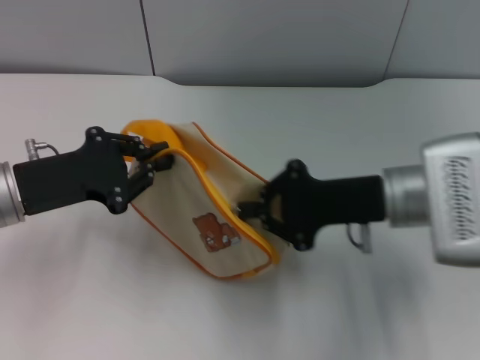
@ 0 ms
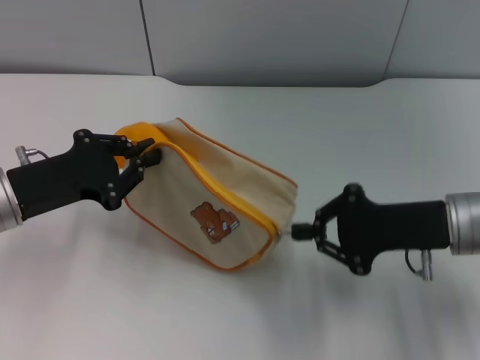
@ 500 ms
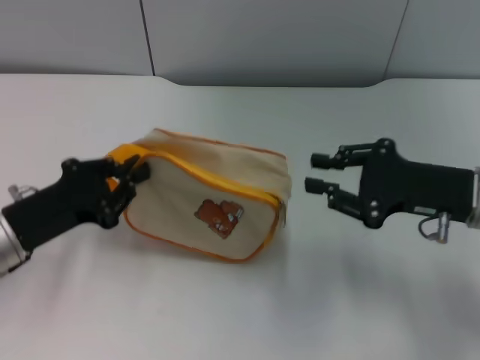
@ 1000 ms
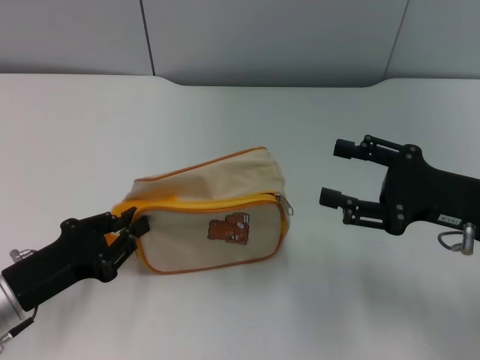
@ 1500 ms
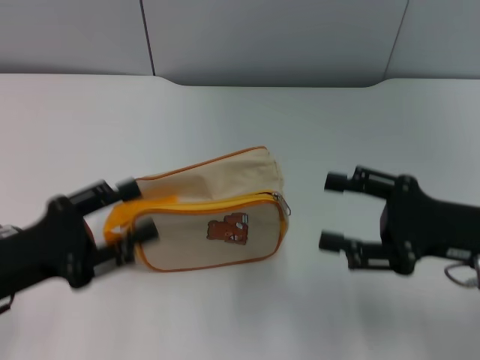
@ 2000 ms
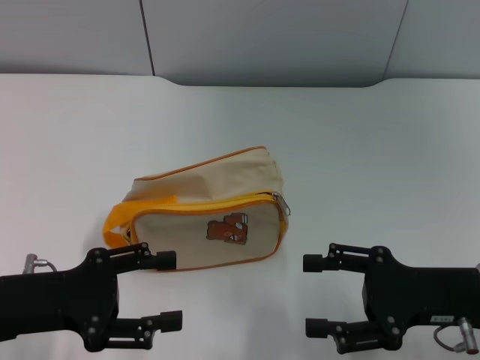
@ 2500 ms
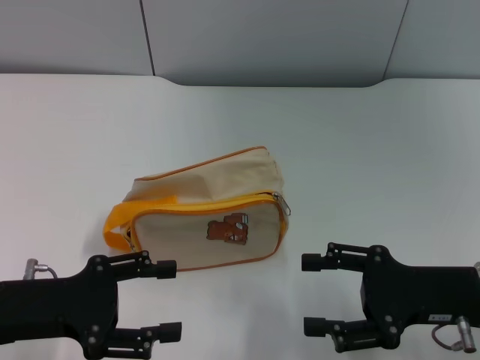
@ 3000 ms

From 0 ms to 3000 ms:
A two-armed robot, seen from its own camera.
Step, from 1500 ms to 2000 ms: Place the bag on the table with left gripper.
From 0 ms to 1500 ms: The left gripper shifts approximately 10 cm backward and downward, while the right gripper travels to the right by approximately 10 cm, and opens its fingers.
From 1500 ms to 3000 ms: The left gripper opens up. Meanwhile the right gripper changes place by roughly 5 cm.

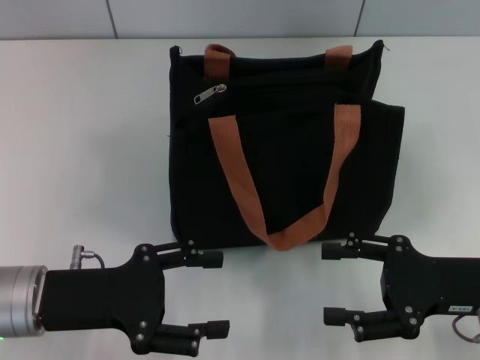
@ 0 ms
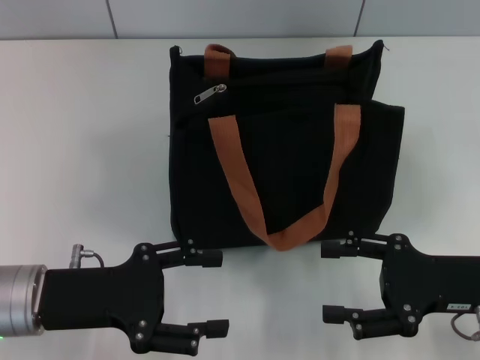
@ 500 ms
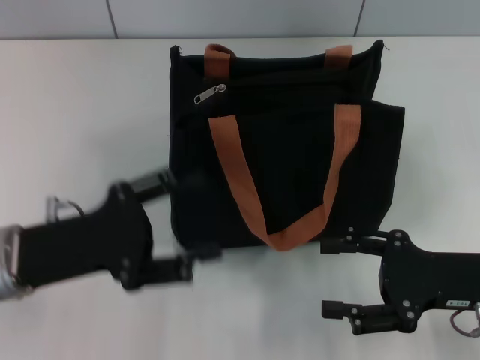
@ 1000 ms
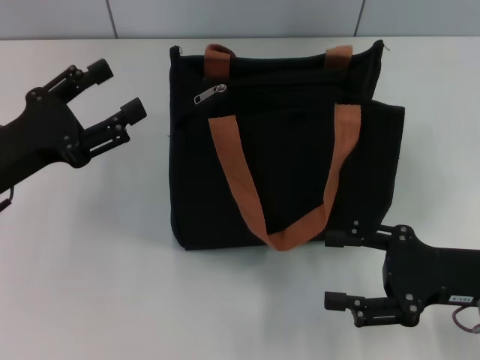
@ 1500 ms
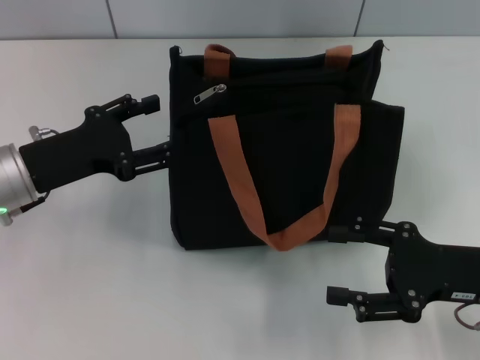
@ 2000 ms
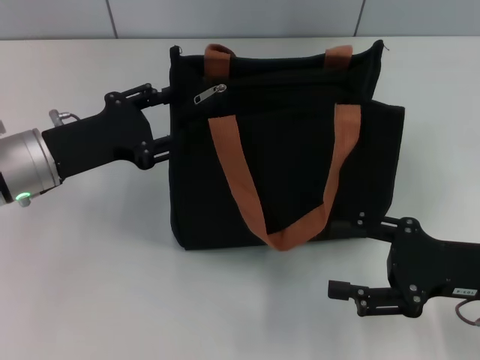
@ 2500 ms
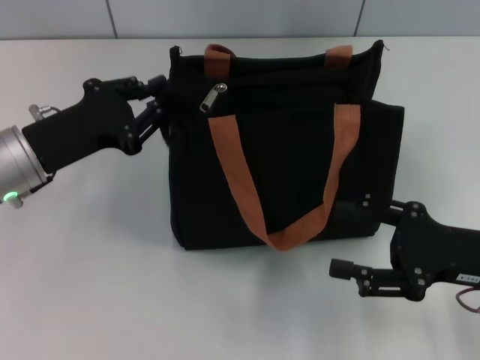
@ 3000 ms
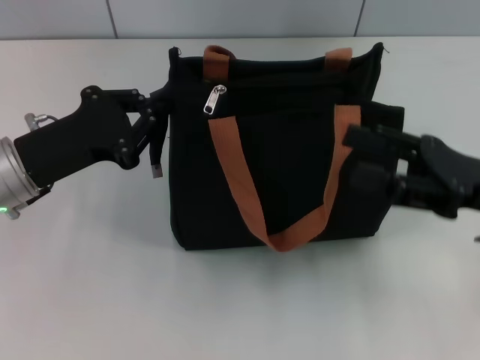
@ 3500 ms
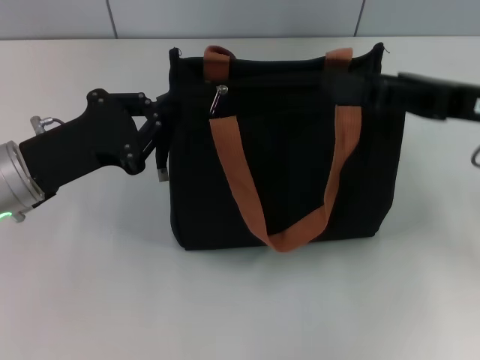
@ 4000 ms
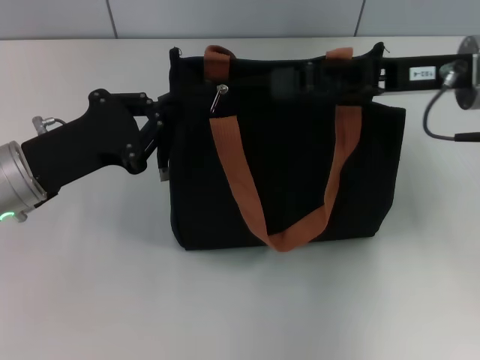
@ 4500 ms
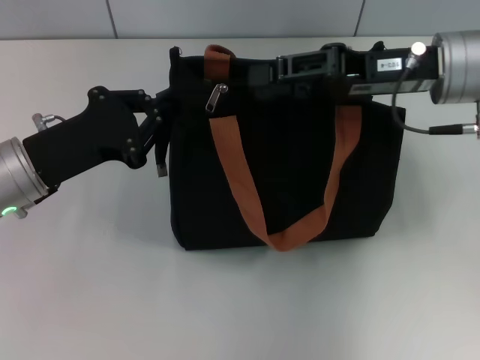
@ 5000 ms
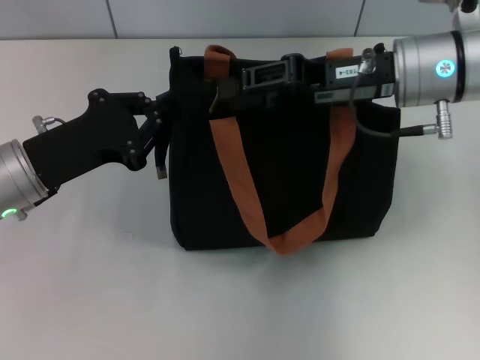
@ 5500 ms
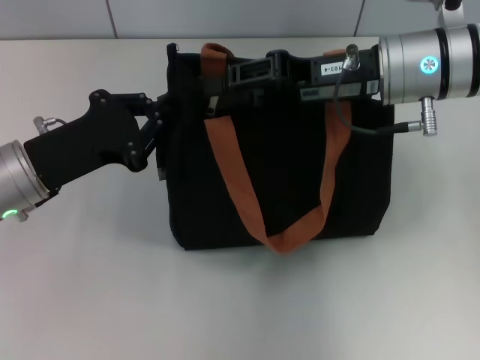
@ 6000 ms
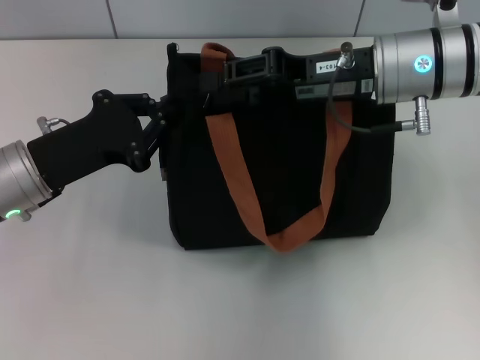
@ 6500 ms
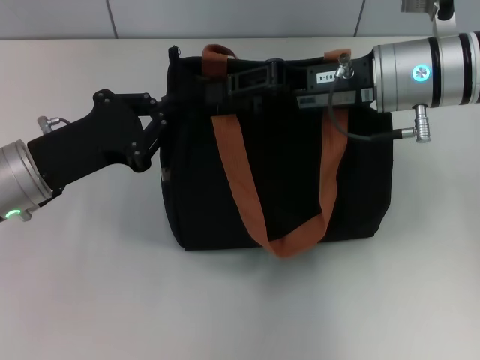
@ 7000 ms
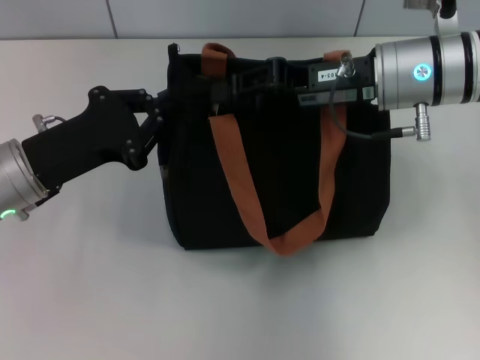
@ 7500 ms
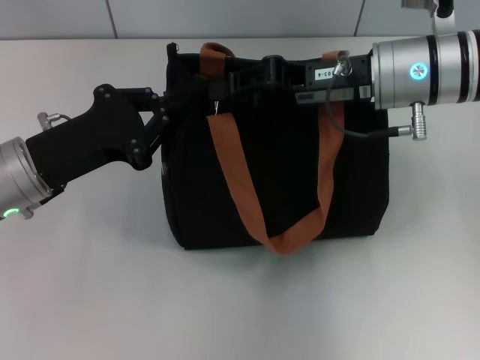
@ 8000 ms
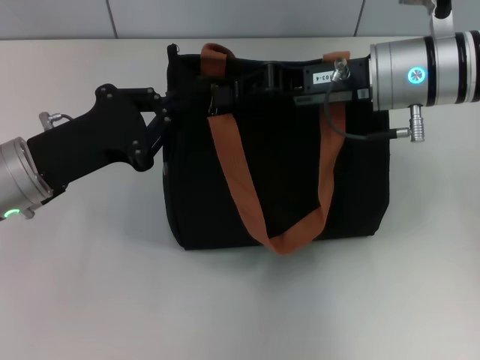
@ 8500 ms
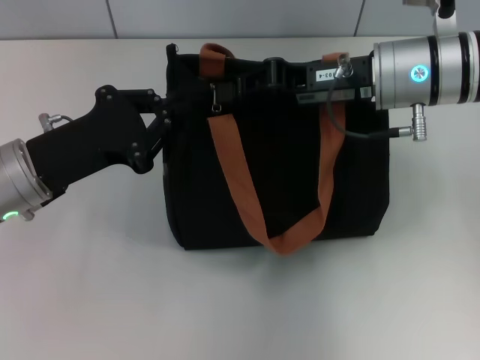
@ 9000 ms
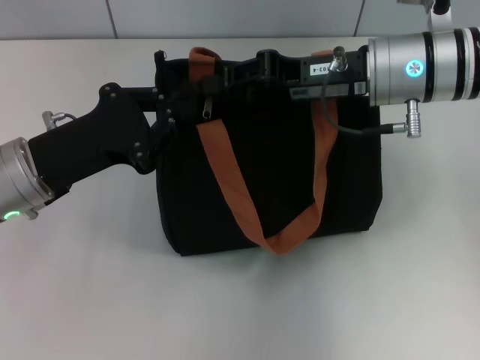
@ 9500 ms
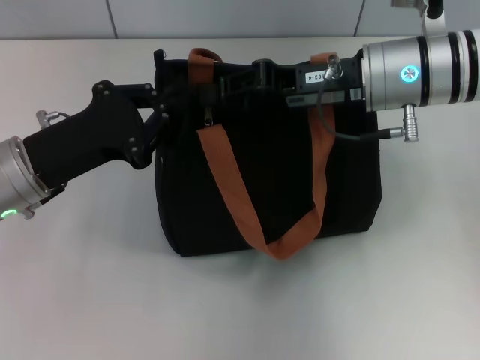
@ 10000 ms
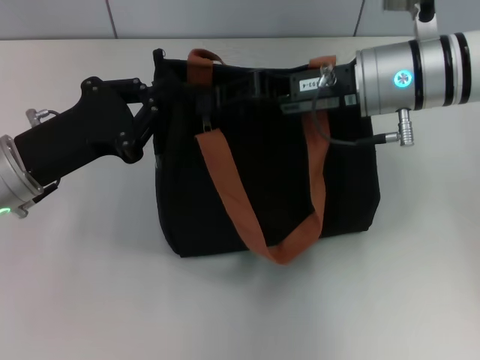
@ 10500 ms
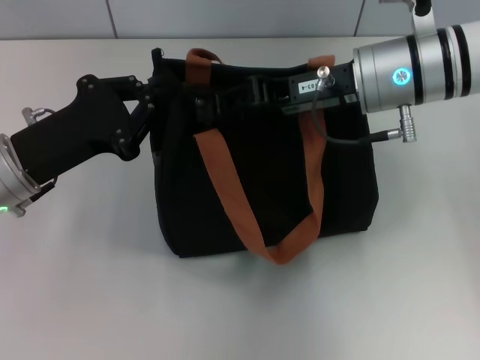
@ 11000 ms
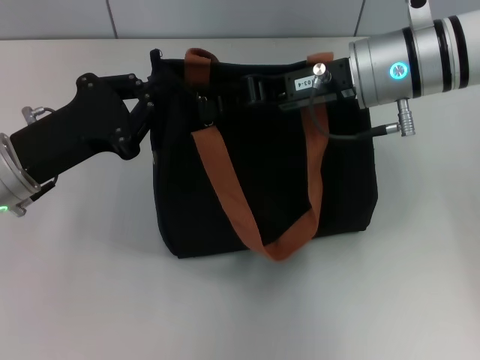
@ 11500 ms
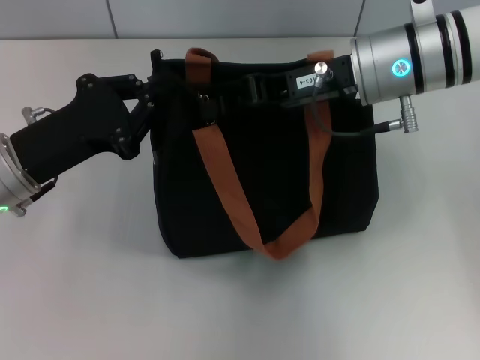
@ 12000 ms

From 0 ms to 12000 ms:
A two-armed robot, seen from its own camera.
From 0 ms to 2000 ms: The left gripper heads forward, covering approximately 10 cm.
From 2000 ms to 4000 ms: The right gripper moves upward and forward, some 15 cm; the left gripper closes.
From 4000 ms to 6000 ms: The right gripper moves to the left and forward, approximately 10 cm.
From 6000 ms to 8000 ms: Both grippers stay about where they are.
From 8000 ms to 10000 ms: Both grippers stay about where they are.
From 10000 ms to 12000 ms: There are only small adjustments of the grippers.

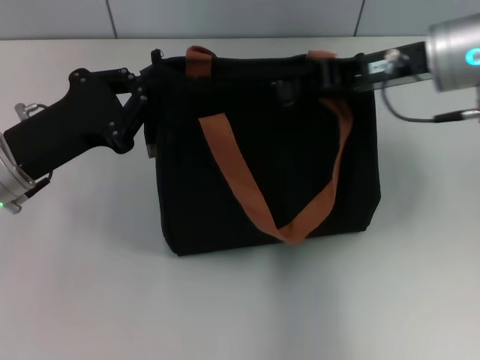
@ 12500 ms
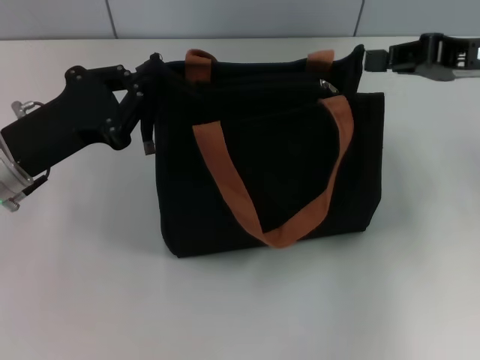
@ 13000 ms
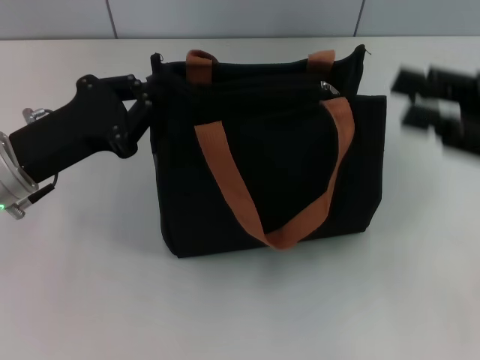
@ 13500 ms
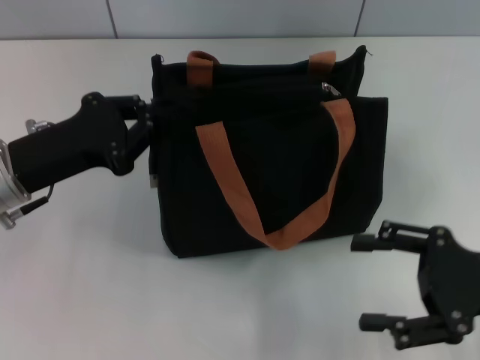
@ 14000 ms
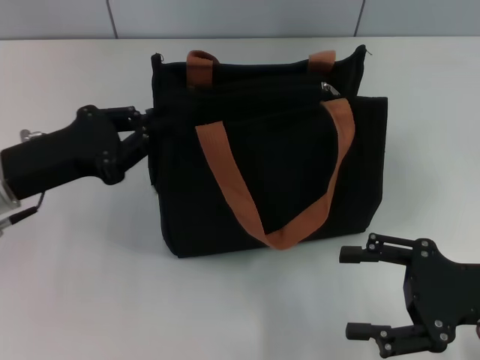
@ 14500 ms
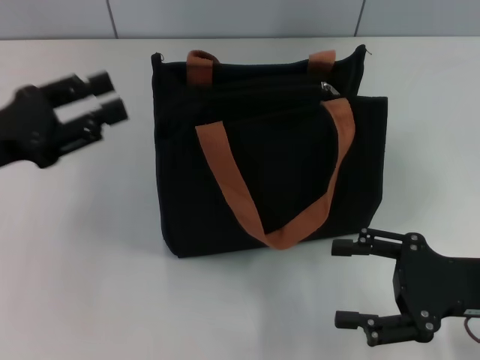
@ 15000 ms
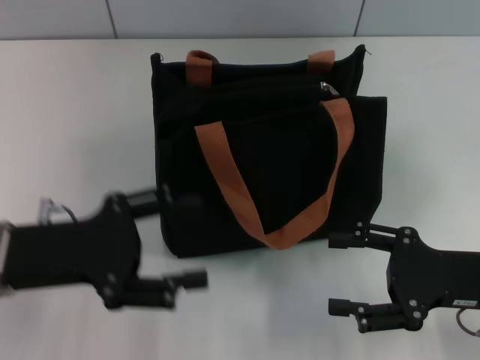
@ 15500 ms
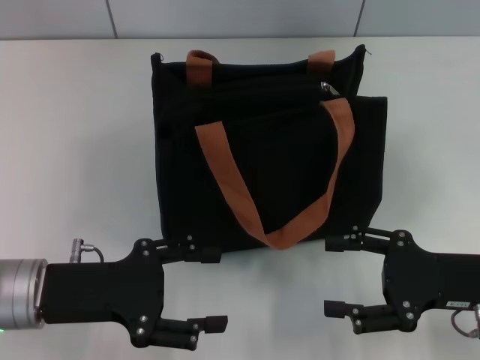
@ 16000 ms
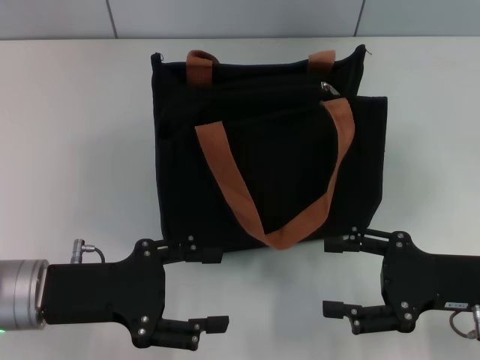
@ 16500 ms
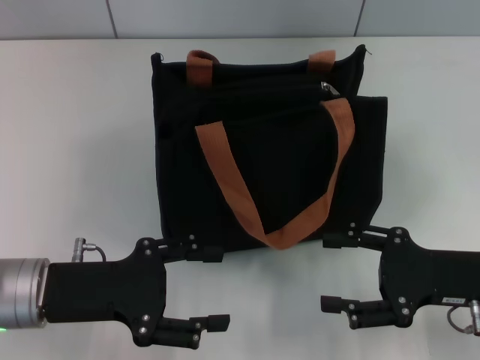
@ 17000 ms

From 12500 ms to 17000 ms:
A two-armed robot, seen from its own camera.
Step, from 13500 ms to 14500 ms: Grab the zipper with your left hand.
From 12500 ms to 14500 ms: The right gripper travels backward, downward and to the right by roughly 20 cm, and opens its fingers.
From 14500 ms to 17000 ms: The left gripper heads backward, covering roughly 5 cm, and opens its fingers.
